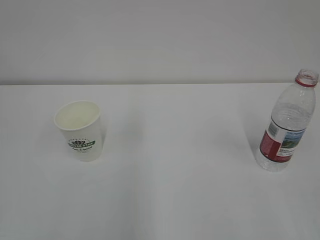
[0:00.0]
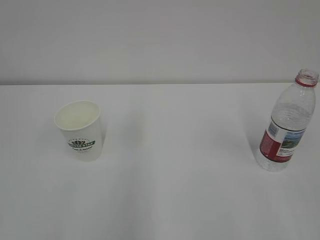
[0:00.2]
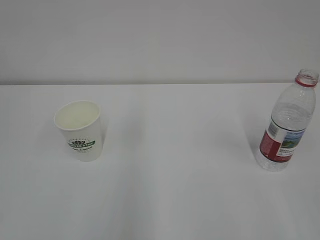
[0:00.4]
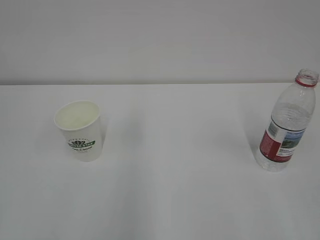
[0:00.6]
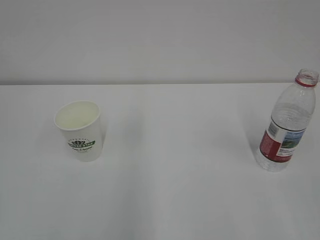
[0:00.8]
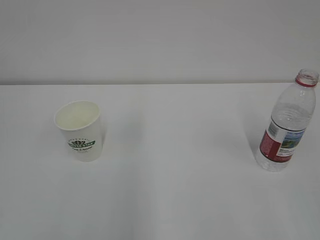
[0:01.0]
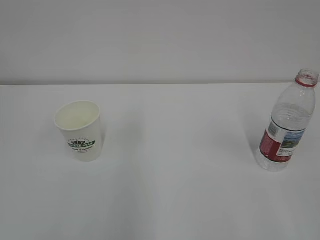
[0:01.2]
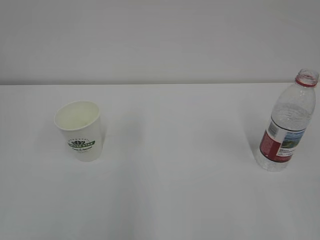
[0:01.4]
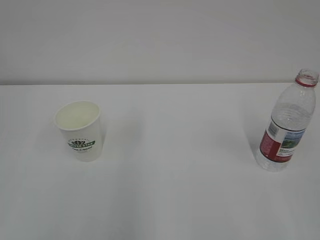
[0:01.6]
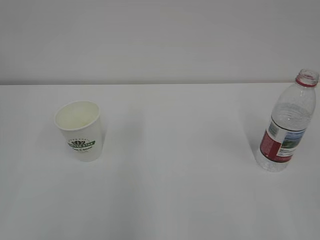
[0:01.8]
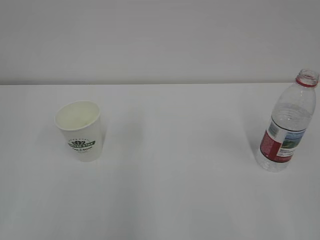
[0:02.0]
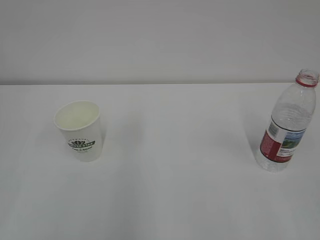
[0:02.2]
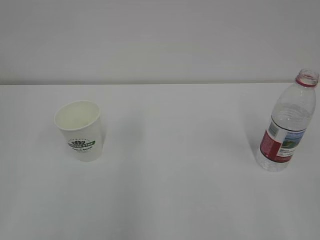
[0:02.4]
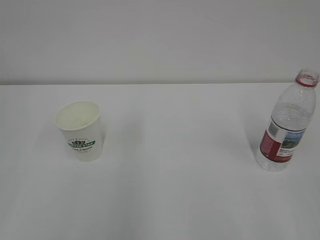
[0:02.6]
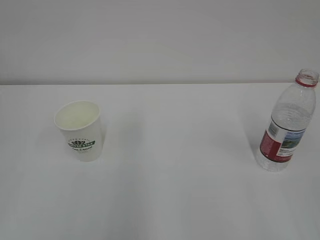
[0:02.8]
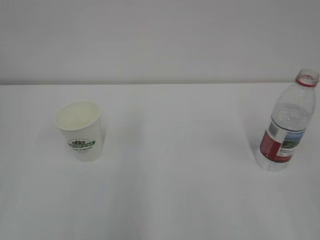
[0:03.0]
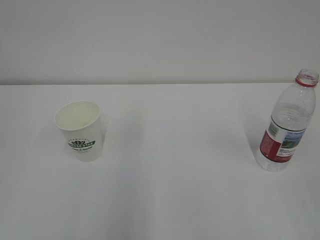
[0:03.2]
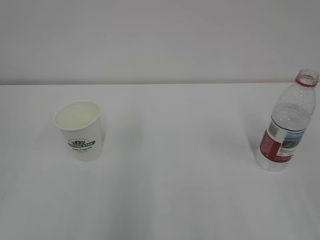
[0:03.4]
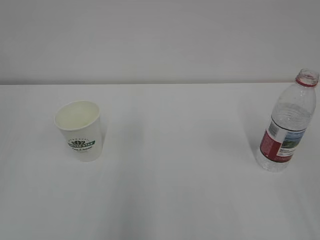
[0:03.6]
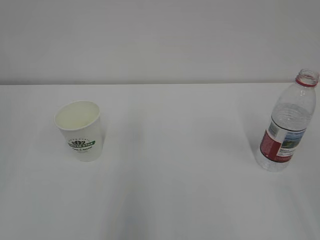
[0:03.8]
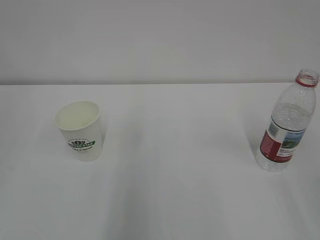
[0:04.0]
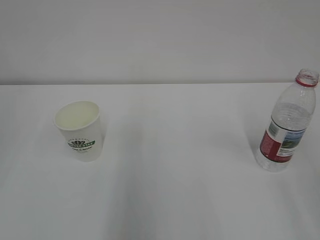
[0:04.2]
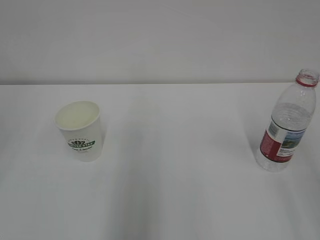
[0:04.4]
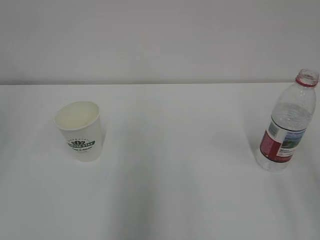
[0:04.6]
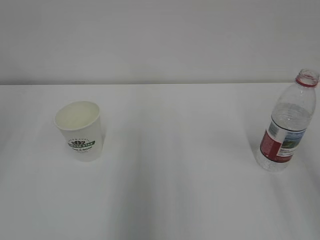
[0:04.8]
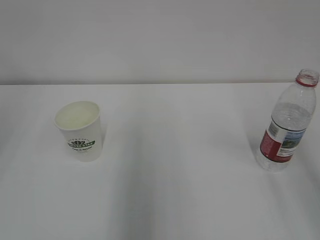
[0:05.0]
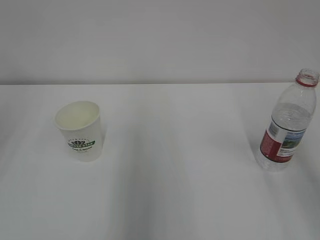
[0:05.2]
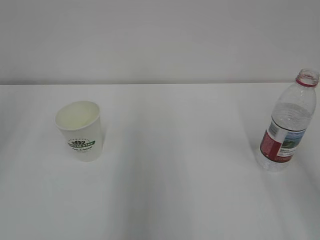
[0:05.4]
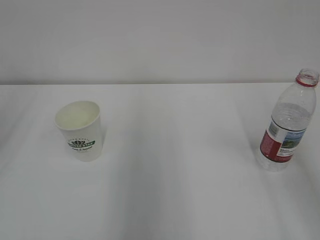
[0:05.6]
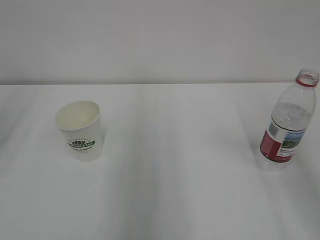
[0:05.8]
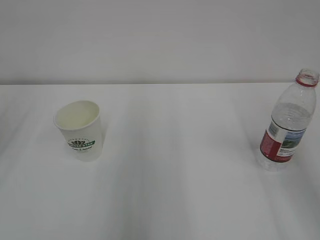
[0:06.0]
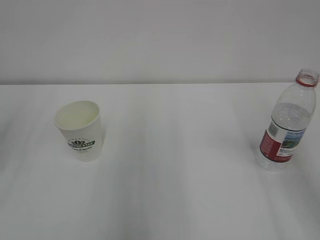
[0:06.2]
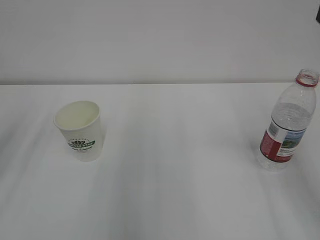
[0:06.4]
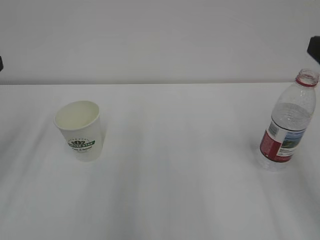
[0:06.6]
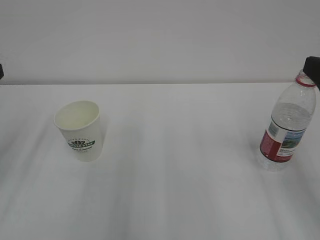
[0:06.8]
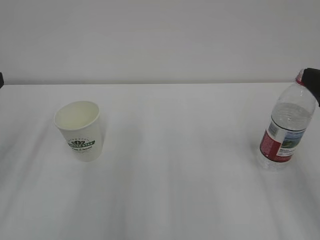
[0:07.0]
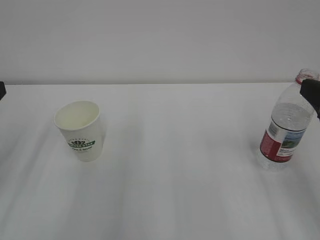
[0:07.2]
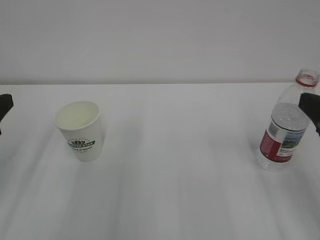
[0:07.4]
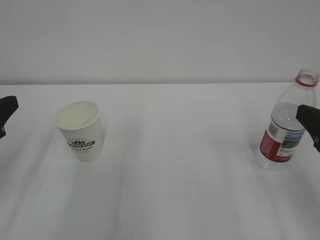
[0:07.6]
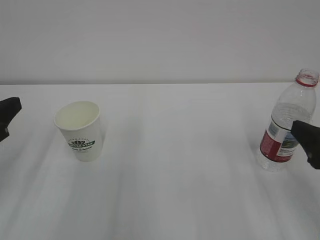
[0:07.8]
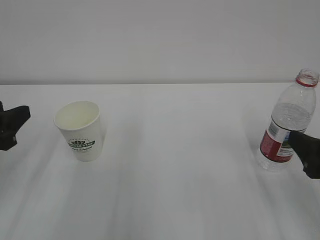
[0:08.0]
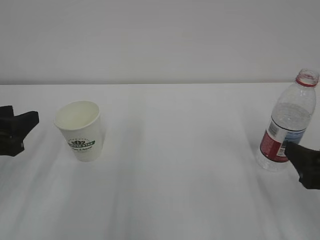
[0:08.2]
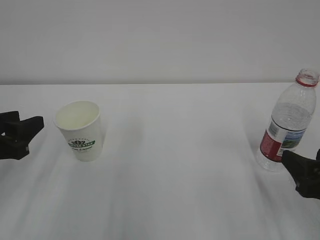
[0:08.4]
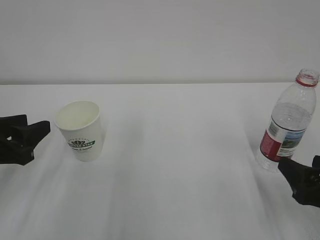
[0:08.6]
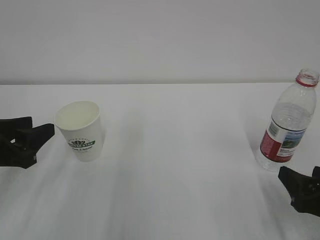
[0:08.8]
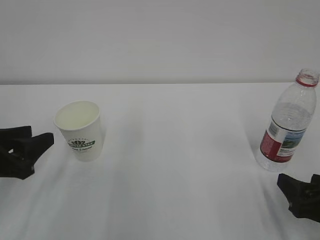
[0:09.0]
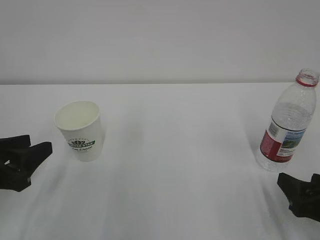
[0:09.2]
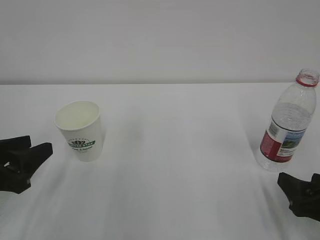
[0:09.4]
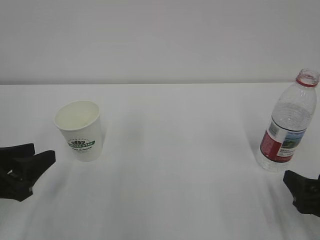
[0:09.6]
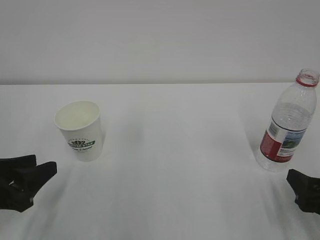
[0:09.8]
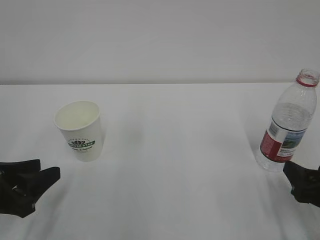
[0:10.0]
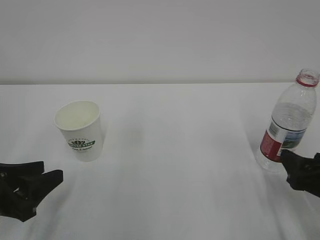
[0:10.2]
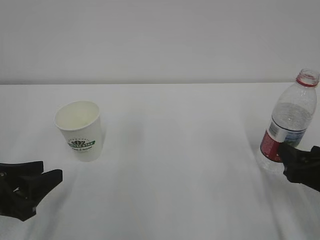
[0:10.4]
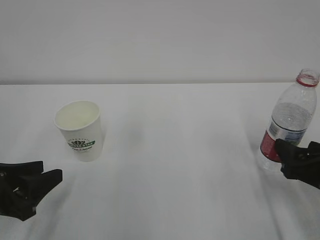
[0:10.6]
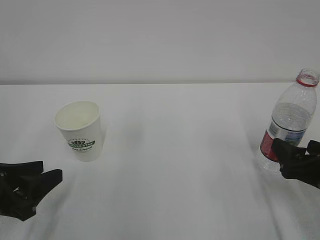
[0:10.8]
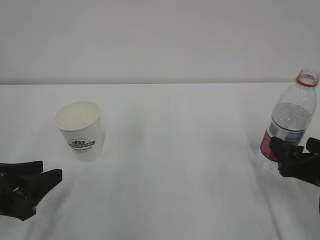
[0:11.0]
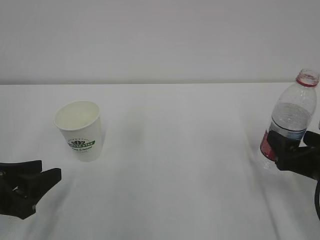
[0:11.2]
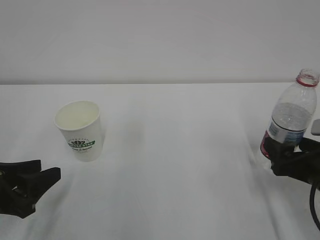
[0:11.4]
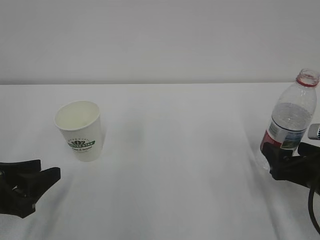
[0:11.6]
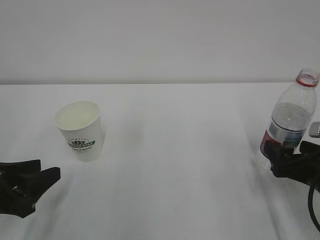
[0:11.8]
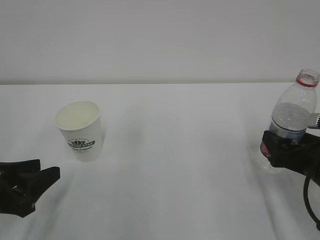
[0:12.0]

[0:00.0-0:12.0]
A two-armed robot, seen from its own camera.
0:06.0 to 0:07.6: The right gripper travels downward by about 15 cm.
0:07.6 to 0:09.0: The left gripper heads downward, covering roughly 5 cm. Meanwhile the right gripper travels downward by about 10 cm.
0:09.0 to 0:10.4: The left gripper ends up roughly 5 cm from where it was.
0:10.4 to 0:12.0: The right gripper opens up.

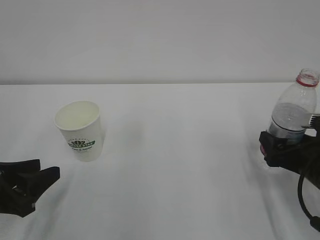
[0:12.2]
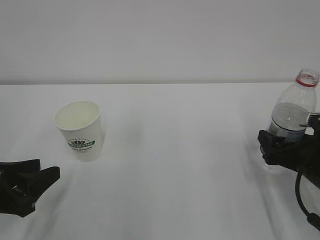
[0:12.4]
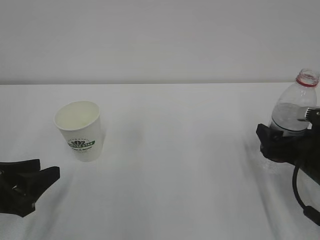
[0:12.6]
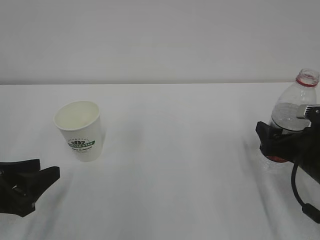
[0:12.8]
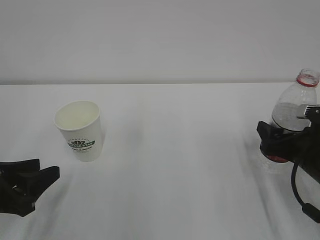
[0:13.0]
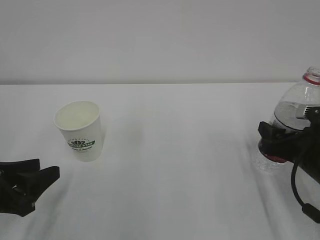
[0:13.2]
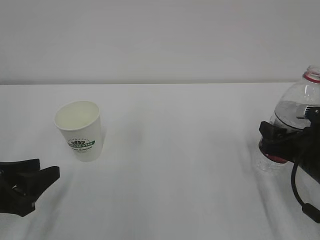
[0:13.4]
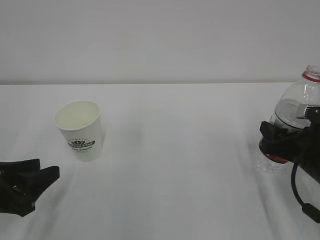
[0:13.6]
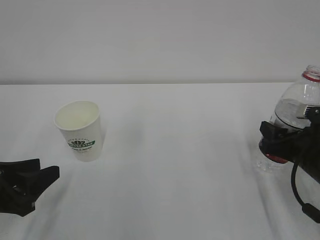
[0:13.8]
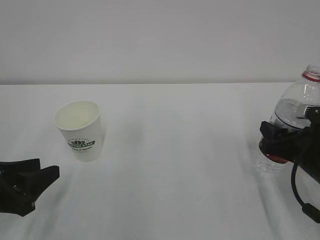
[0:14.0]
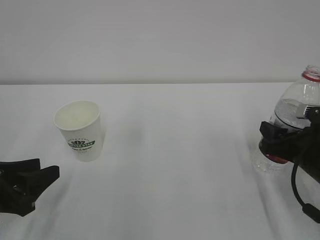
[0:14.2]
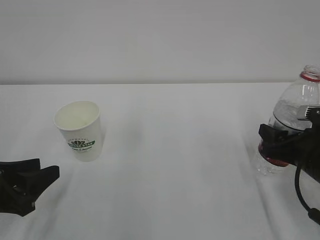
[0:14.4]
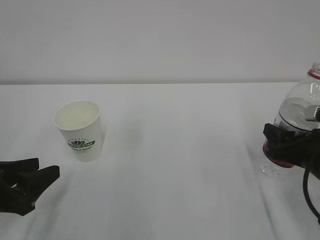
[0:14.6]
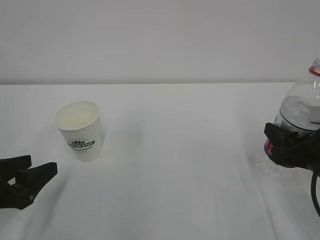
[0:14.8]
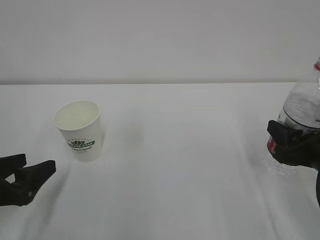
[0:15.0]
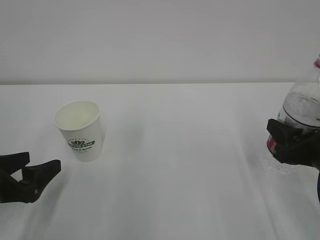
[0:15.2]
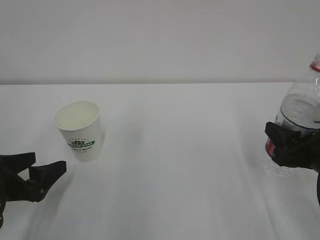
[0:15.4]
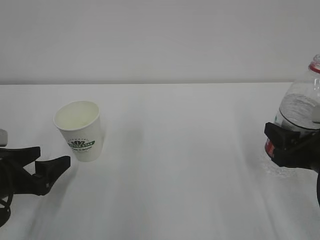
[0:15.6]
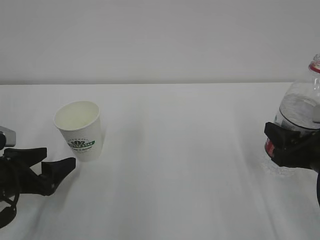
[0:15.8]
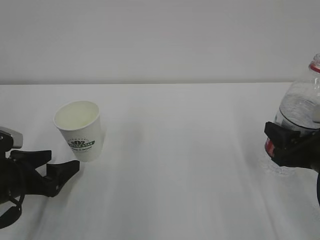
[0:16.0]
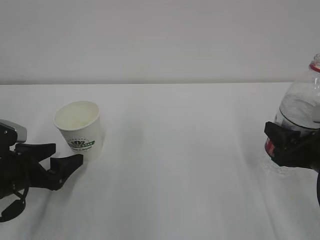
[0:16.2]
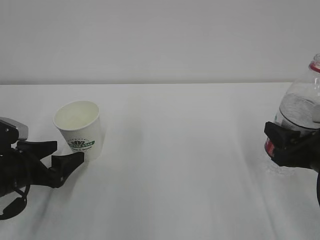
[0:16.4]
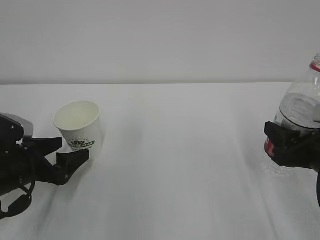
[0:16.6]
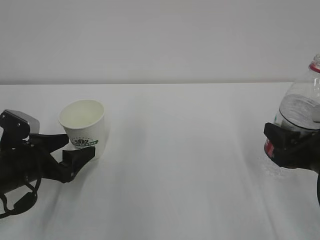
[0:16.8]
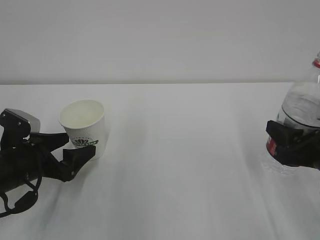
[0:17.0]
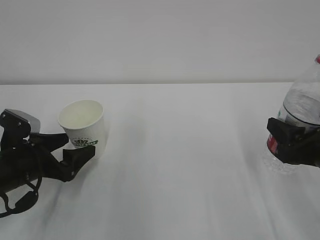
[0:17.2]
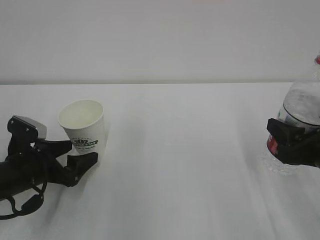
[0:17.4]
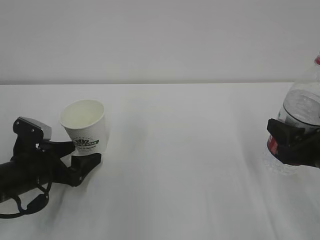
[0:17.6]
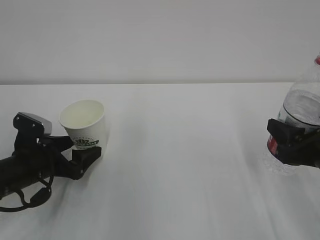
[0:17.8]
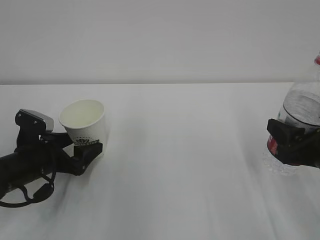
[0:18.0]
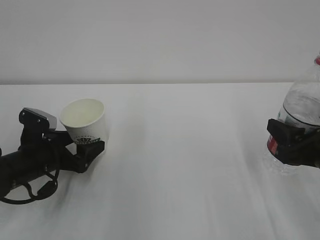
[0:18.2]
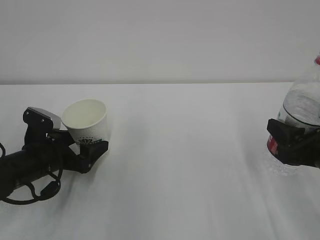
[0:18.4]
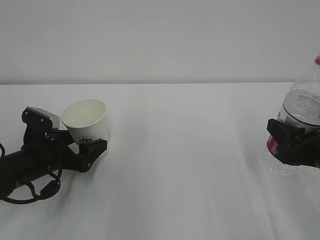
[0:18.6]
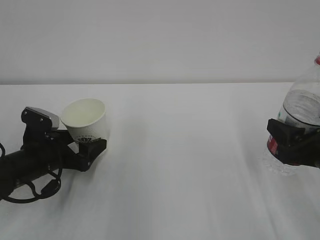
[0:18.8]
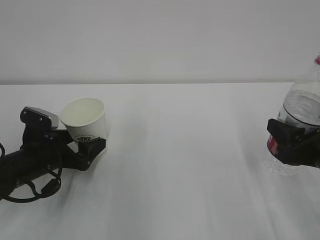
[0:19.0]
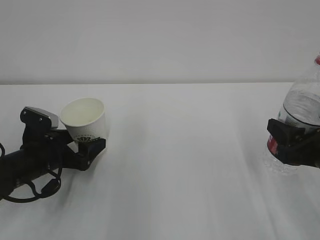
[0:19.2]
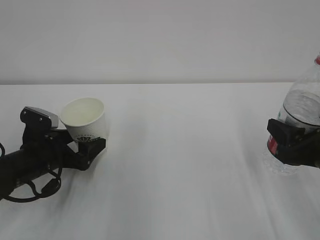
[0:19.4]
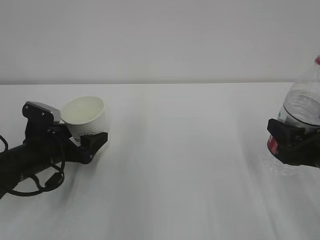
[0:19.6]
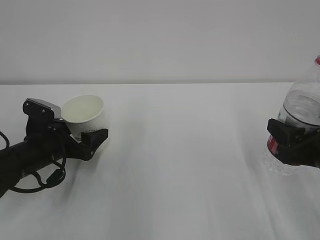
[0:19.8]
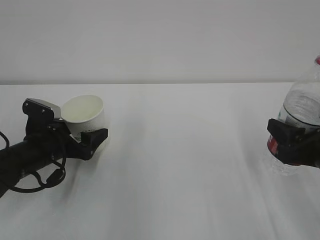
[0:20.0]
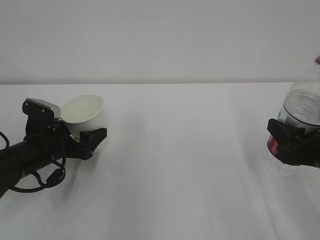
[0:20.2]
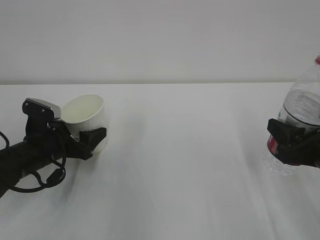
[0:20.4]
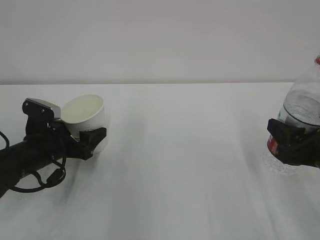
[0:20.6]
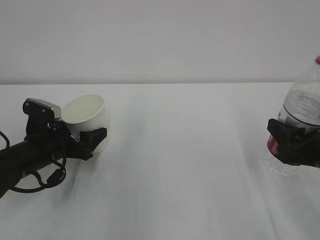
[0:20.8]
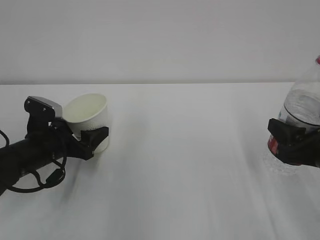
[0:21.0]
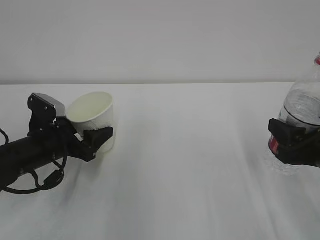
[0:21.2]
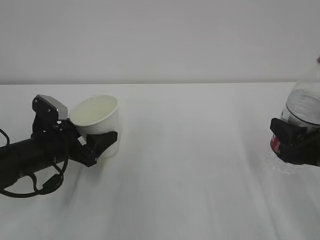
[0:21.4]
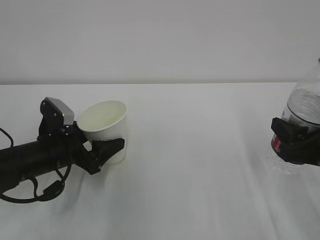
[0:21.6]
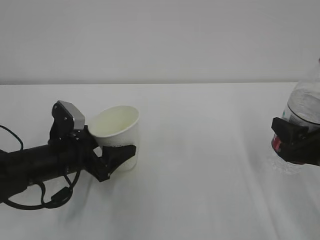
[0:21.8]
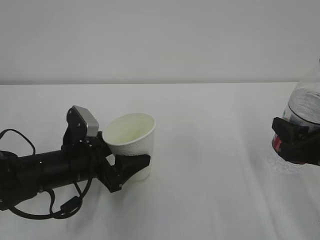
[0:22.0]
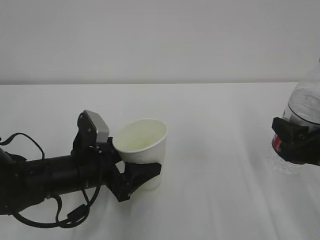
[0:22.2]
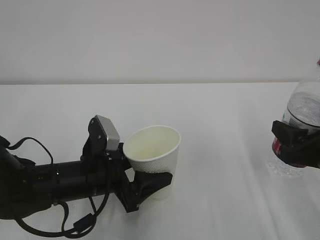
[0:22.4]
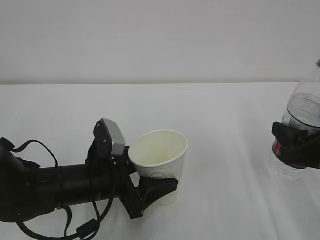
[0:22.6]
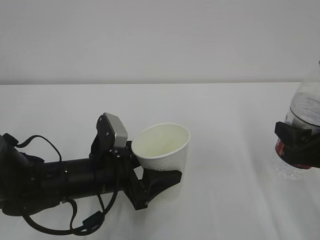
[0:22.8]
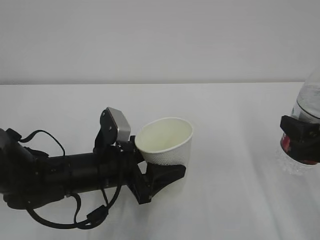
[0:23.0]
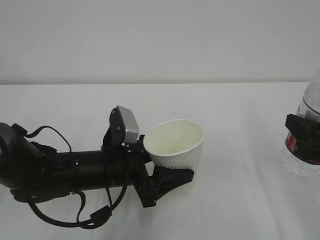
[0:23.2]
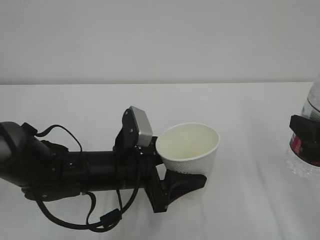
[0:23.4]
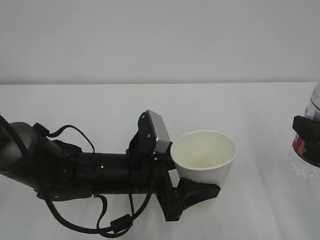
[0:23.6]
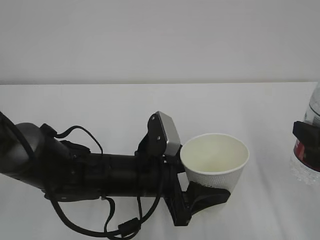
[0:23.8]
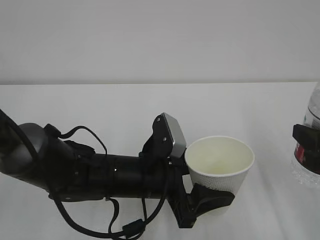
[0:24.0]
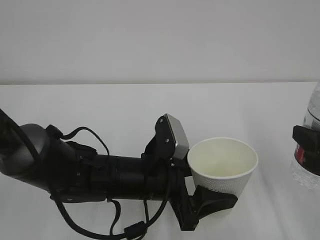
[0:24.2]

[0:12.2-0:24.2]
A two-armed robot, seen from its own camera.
0:12.2 to 0:13.8: The right gripper closes its fingers.
0:13.8 to 0:15.2: The left gripper opens its fingers, while the right gripper shifts by approximately 5 cm.
0:15.2 to 0:16.6: The left gripper travels forward by roughly 5 cm.
0:16.6 to 0:18.2: The grippers make only small movements.
0:18.2 to 0:19.8: There are only small adjustments of the grippers.
0:19.8 to 0:21.2: The left gripper closes its fingers.
0:21.2 to 0:22.6: The left gripper shifts about 10 cm to the right and backward.
0:22.6 to 0:24.2: The left gripper is displaced to the right by about 10 cm. Meanwhile the right gripper ends up approximately 5 cm from where it was.
